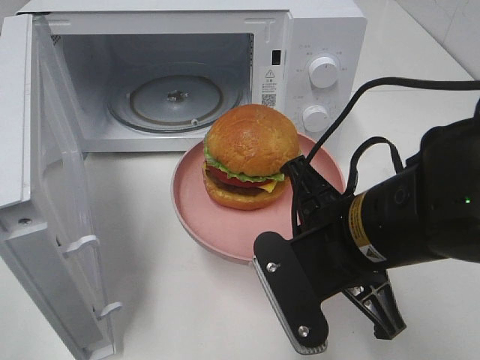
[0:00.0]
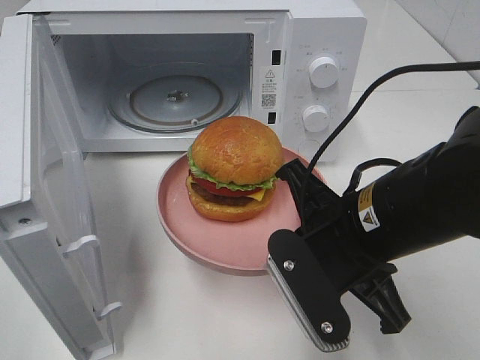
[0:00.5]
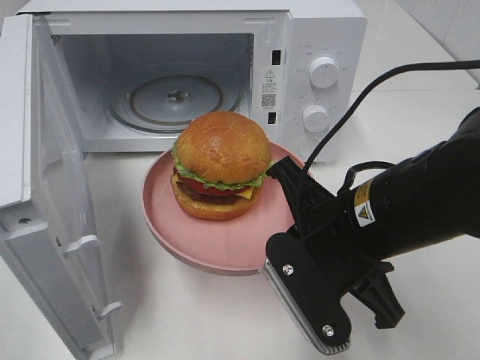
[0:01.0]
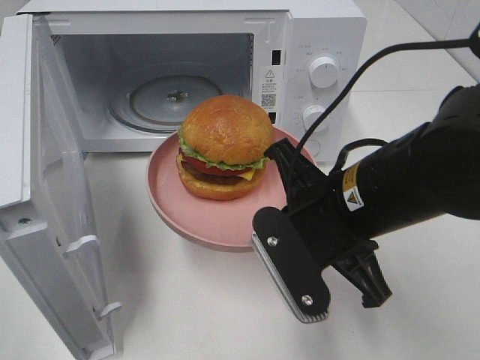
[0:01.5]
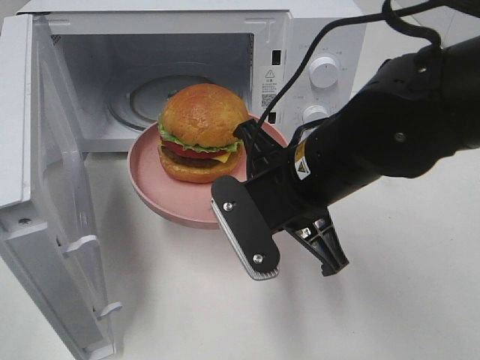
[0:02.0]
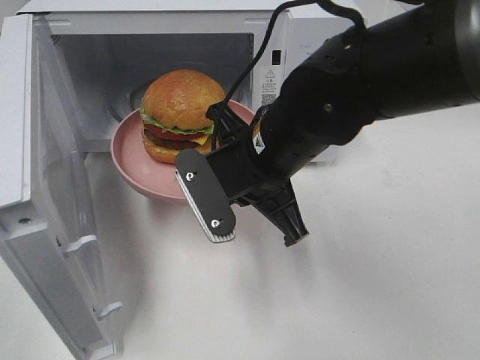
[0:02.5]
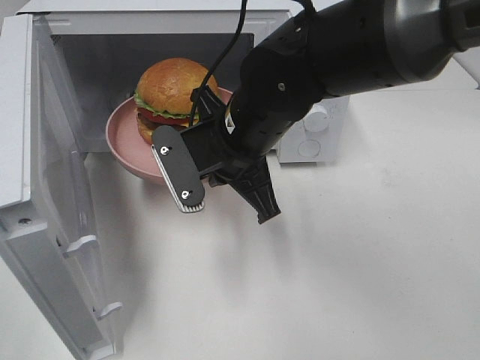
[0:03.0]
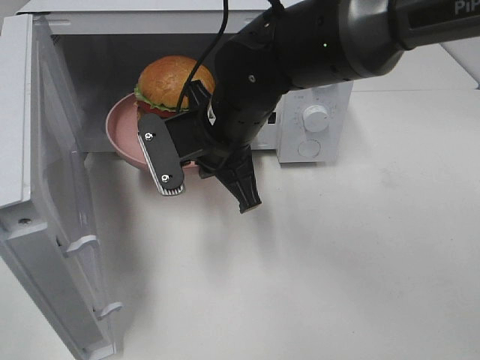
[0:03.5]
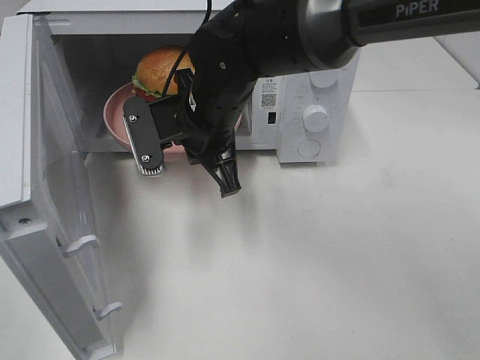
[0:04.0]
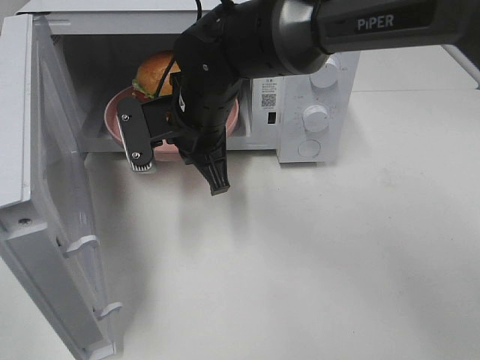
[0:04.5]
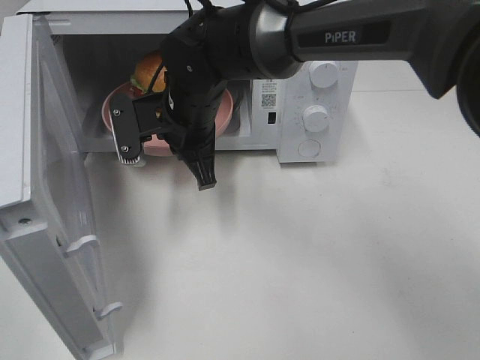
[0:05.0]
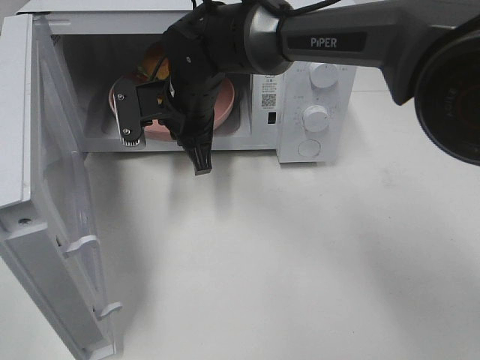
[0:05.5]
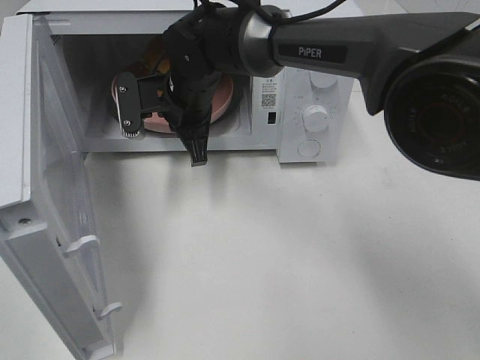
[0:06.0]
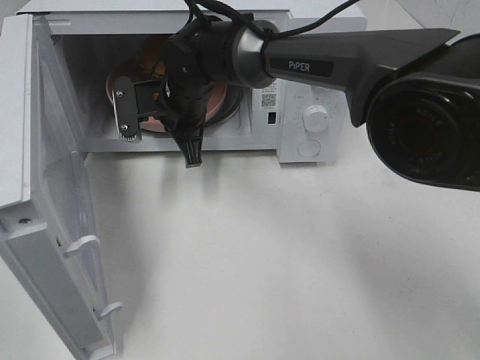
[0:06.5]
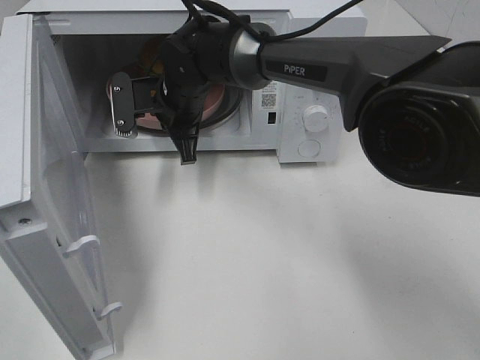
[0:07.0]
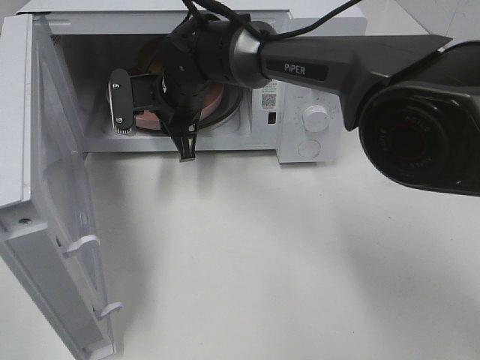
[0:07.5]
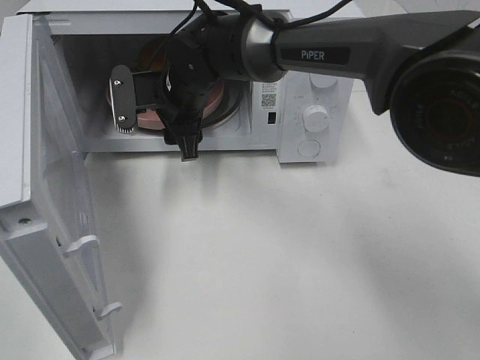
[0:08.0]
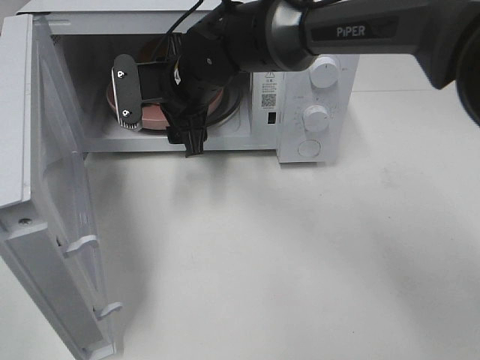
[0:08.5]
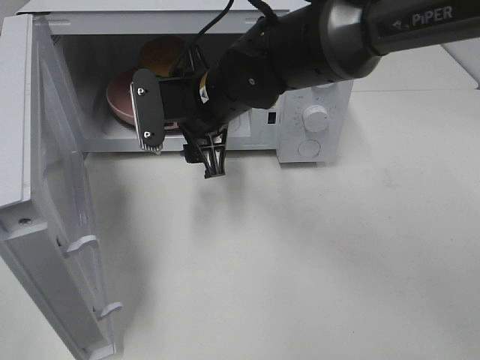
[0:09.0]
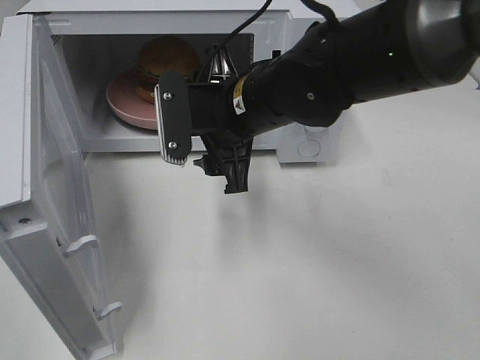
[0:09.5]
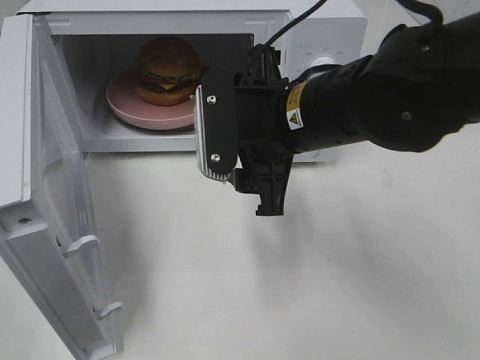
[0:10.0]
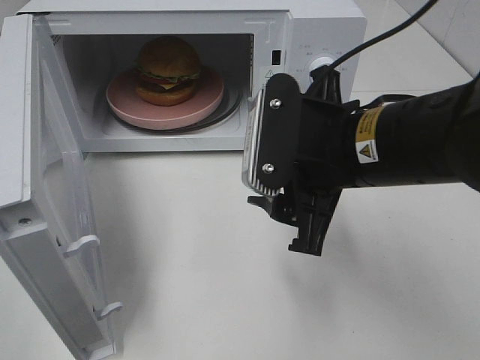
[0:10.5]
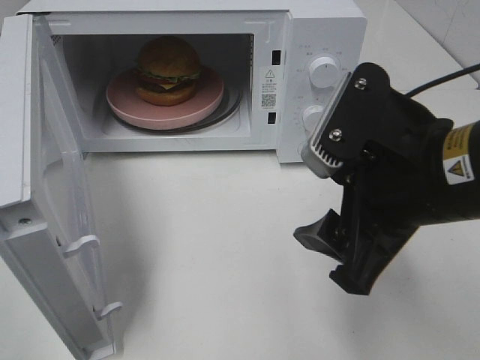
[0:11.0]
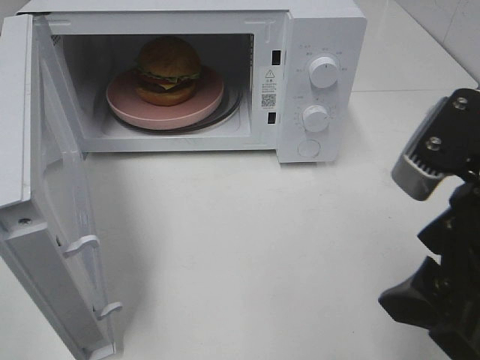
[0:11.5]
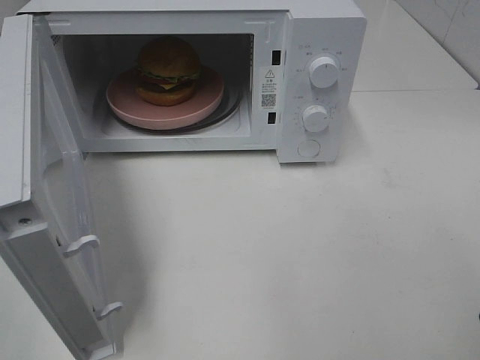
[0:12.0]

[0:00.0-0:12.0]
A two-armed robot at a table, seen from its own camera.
Task of the whole recording: Heat the burger.
Step, 0:00.0 to 0:07.0: Right hand: place the plate in the microwave.
0:00.0 to 0:02.0: The right gripper shifts approximately 5 cm forward.
0:02.0 to 0:04.0: The right gripper travels forward and to the left by about 15 cm.
0:04.0 to 0:06.0: The right gripper is displaced forward by some 10 cm.
0:06.0 to 0:08.0: The right gripper opens up.
0:08.0 to 0:10.0: The right gripper goes roughly 20 cm backward and to the right.
0:10.0 to 0:12.0: The right gripper is displaced backward, to the right and upward by roughly 25 cm.

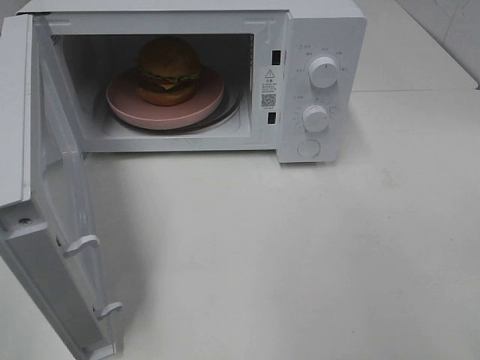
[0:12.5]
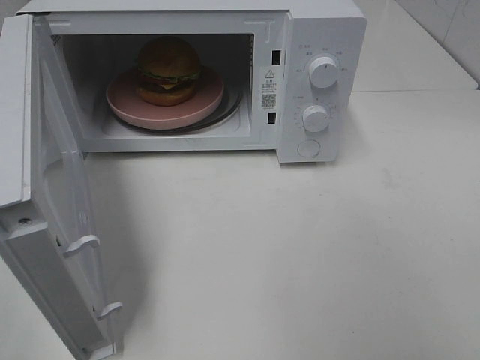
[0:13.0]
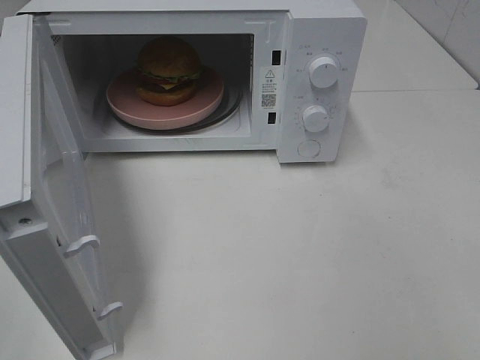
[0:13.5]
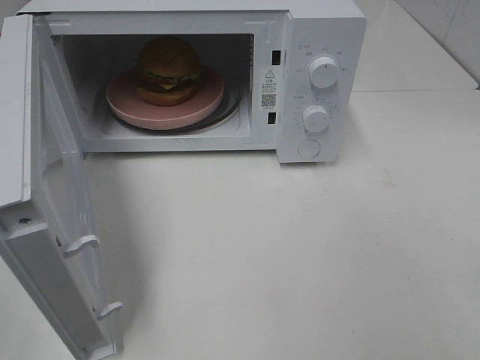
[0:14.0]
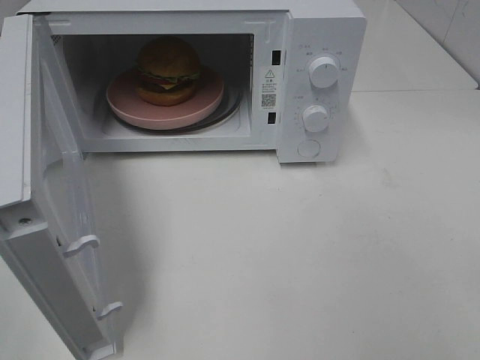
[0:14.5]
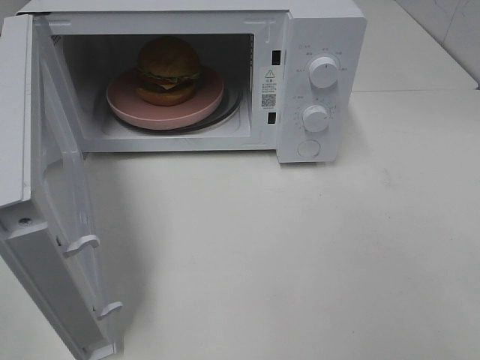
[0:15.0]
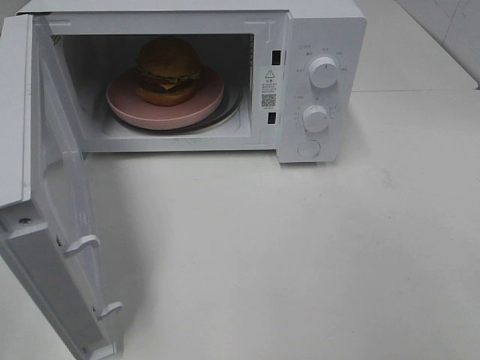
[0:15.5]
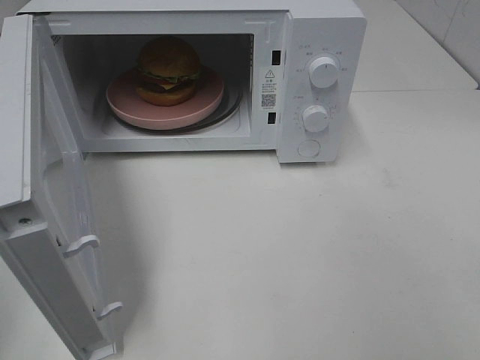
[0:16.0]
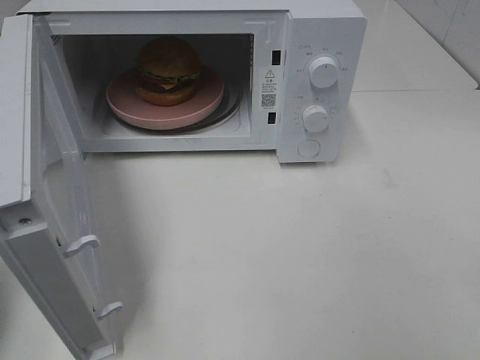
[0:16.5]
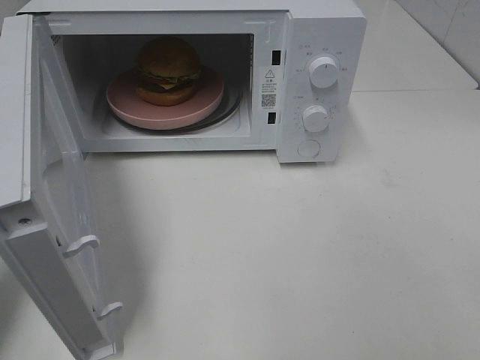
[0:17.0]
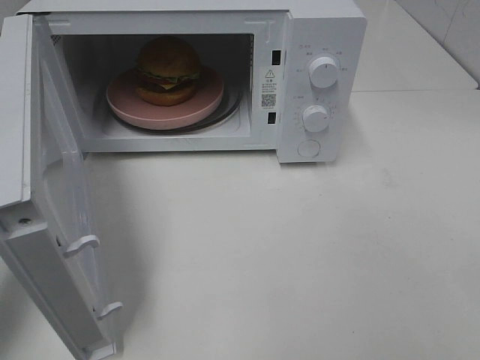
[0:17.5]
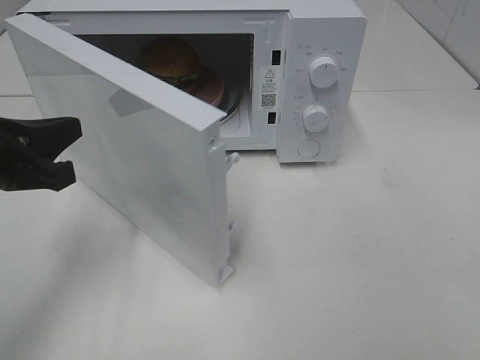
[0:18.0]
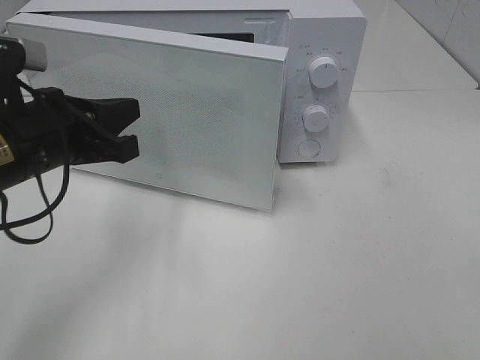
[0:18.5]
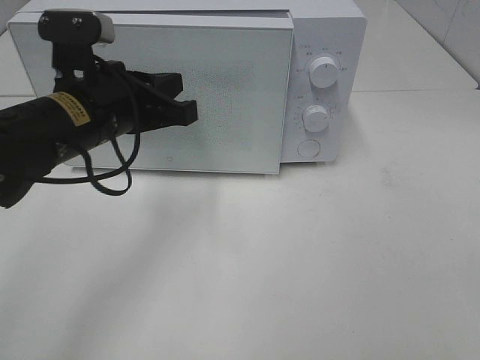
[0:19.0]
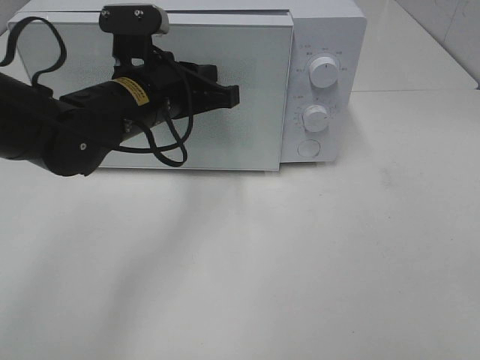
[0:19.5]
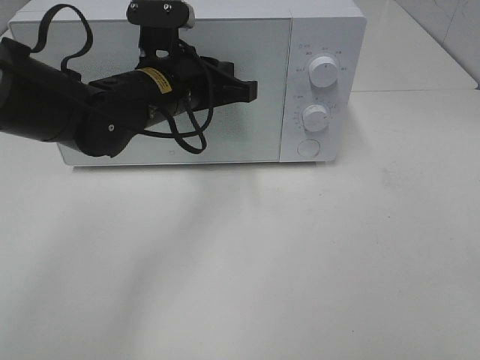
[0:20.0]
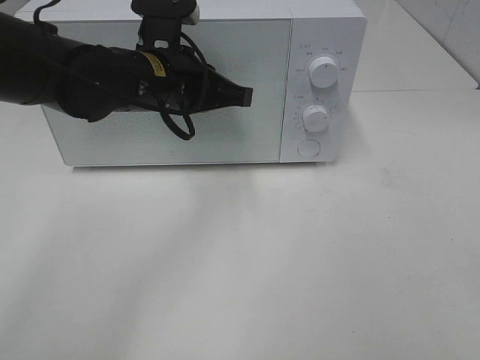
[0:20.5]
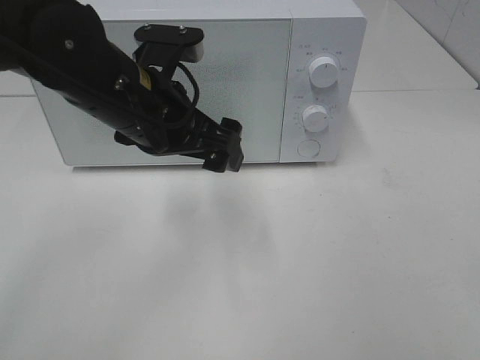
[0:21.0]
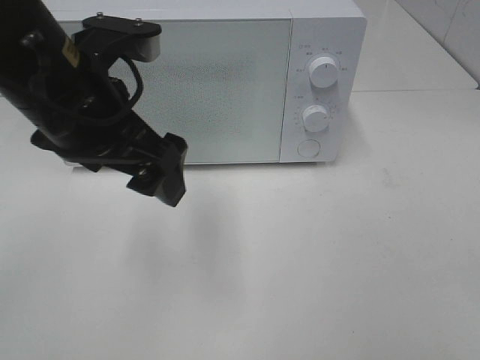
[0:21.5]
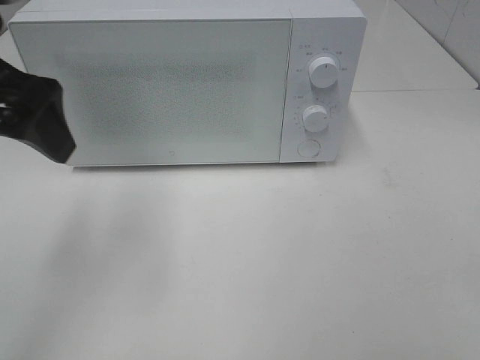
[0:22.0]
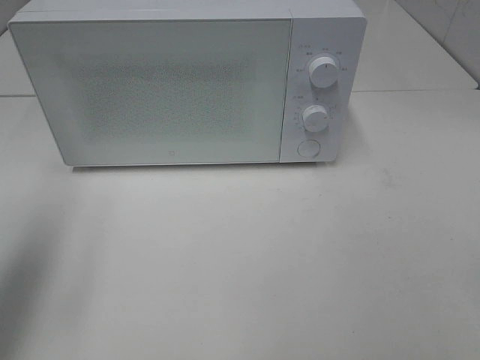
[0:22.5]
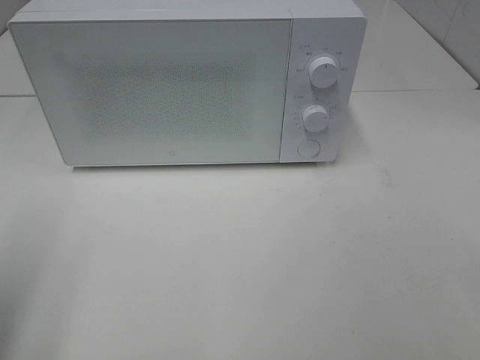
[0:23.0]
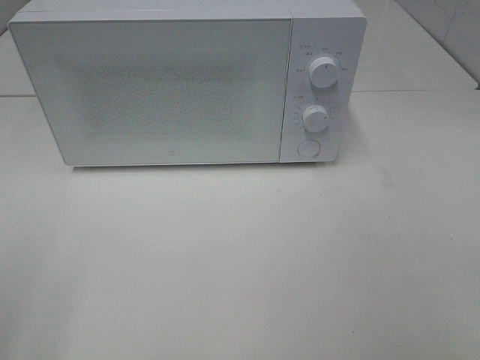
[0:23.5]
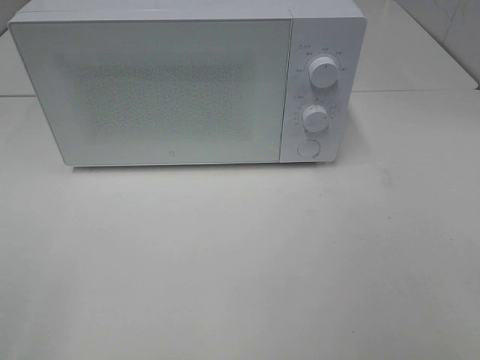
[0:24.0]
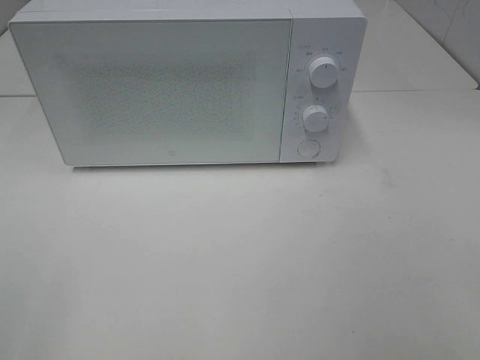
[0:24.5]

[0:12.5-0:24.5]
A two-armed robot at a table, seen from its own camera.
Task of the whole recording: Heat the burger.
Step, 0:12.5 to 0:20.5: Left hand: close the microwave door.
0:16.5 to 0:18.5: The left gripper is displaced to the right, forward and downward by some 20 cm.
0:18.5 to 0:20.5: The left gripper moves to the right and forward, roughly 15 cm.
0:20.5 to 0:22.5: The left gripper is displaced to the left, backward and upward by some 30 cm, and opens up.
0:22.5 to 0:24.5: The left gripper heads backward, covering approximately 20 cm.

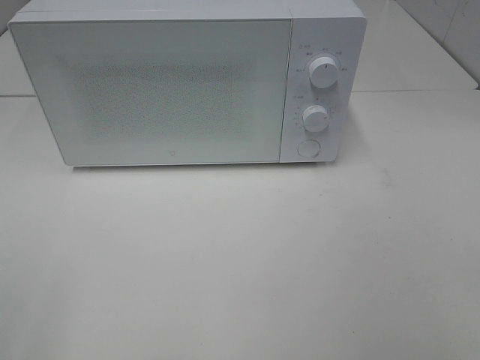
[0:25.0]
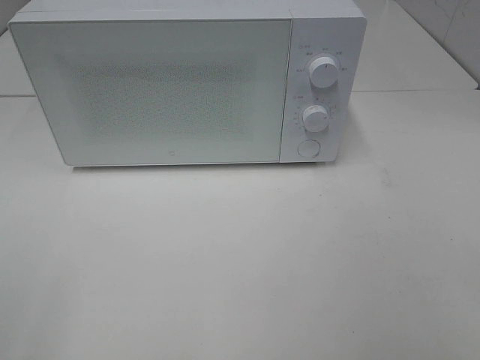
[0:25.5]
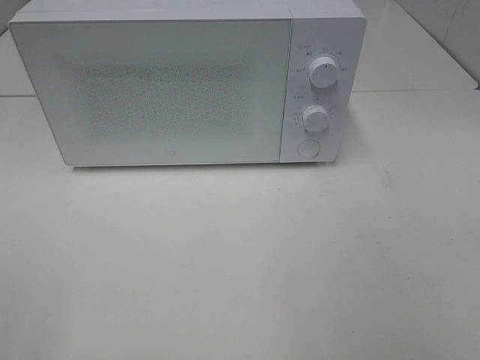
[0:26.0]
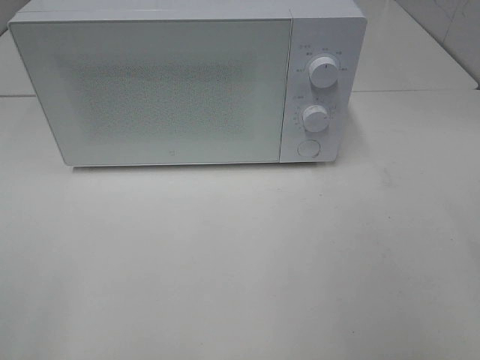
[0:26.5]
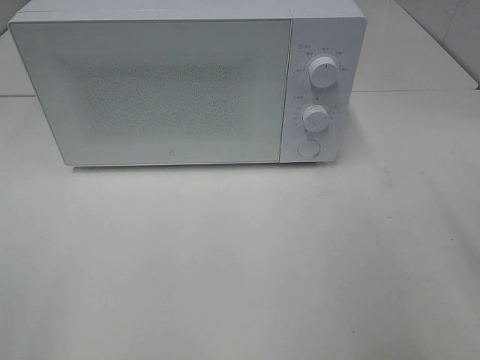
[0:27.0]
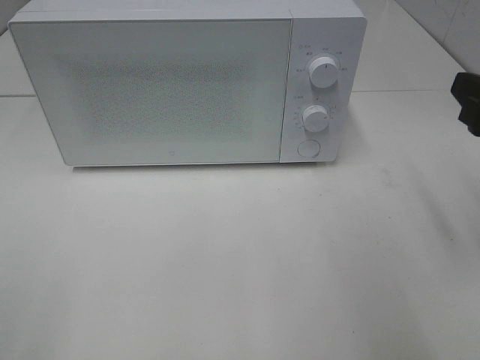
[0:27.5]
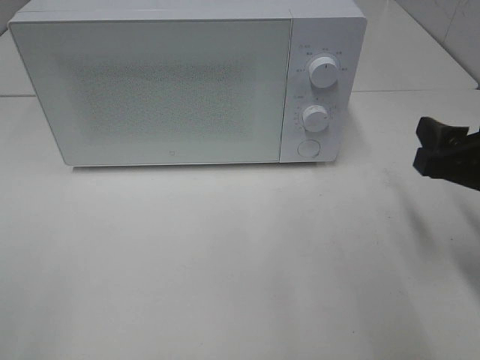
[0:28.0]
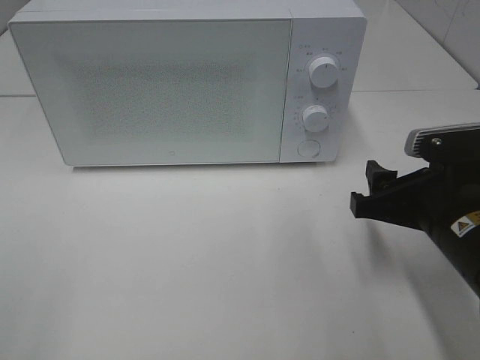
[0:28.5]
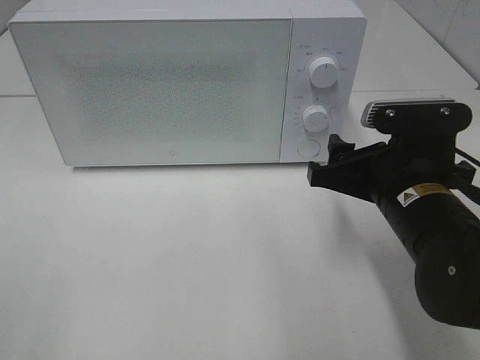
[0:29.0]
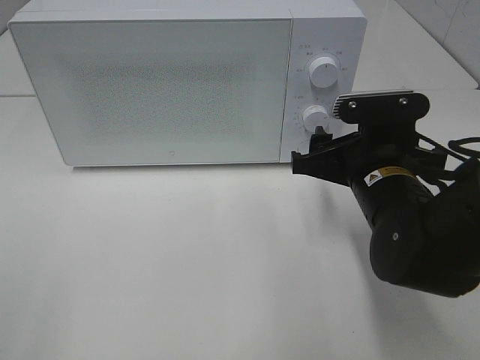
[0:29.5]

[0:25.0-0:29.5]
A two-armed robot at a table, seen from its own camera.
Task of the whole recording: Heat the burger.
0:27.0 to 0:29.5: The right gripper shifts roughly 20 cm downward, to the left and forward.
